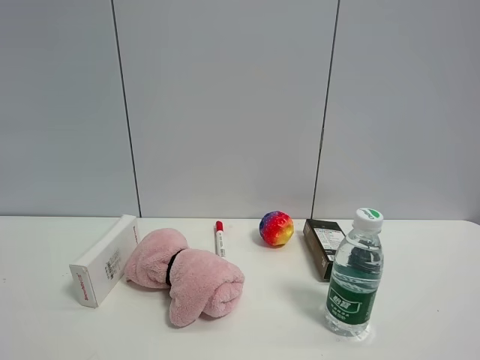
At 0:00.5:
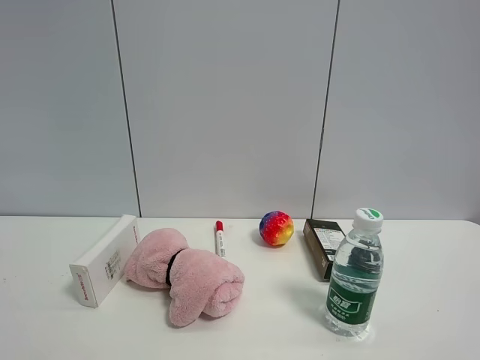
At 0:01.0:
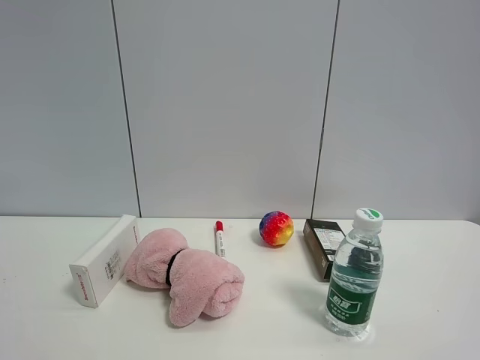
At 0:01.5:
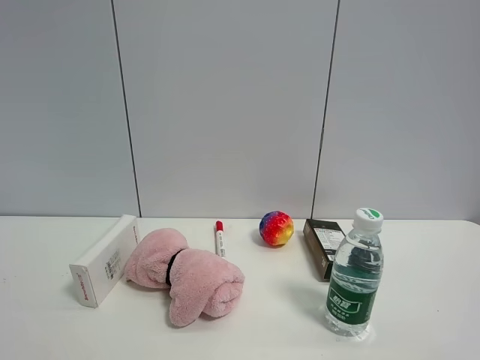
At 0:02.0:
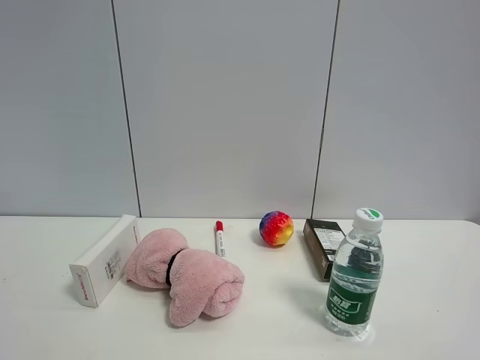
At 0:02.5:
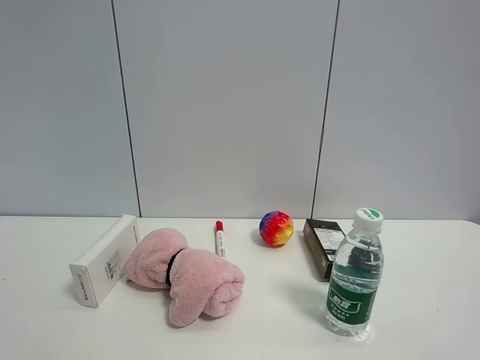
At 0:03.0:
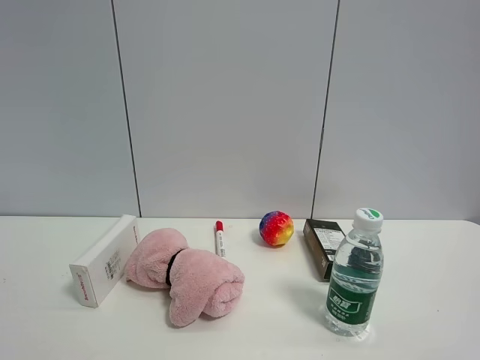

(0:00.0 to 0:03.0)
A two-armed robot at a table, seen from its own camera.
Task of the whole recording: the gripper move the object.
0:01.5 - 0:03.0: Both grippers stay put.

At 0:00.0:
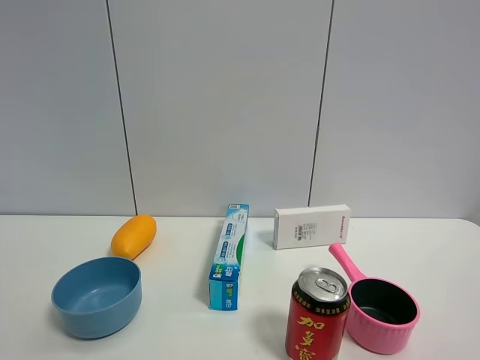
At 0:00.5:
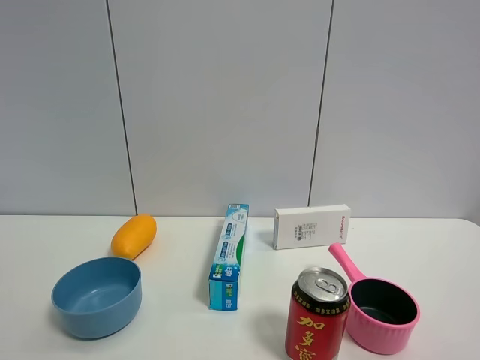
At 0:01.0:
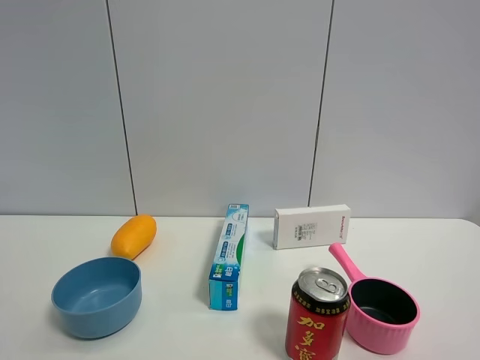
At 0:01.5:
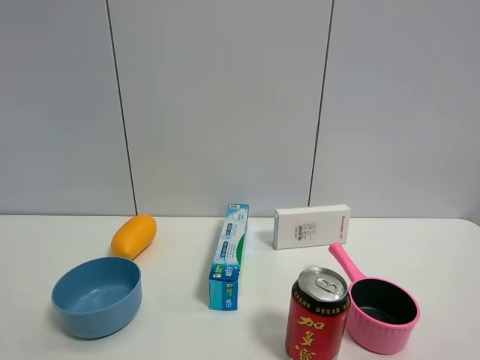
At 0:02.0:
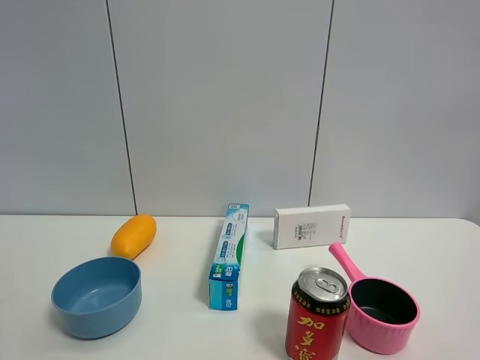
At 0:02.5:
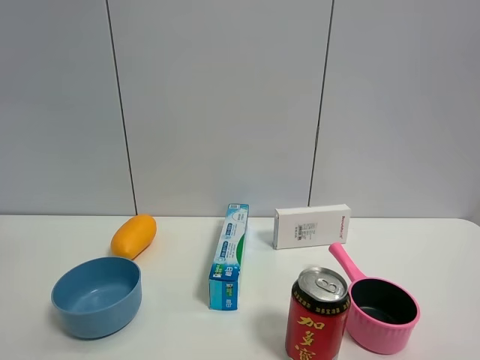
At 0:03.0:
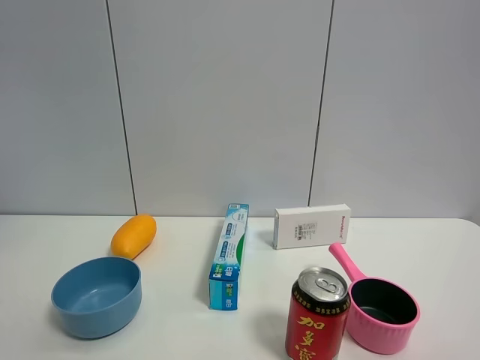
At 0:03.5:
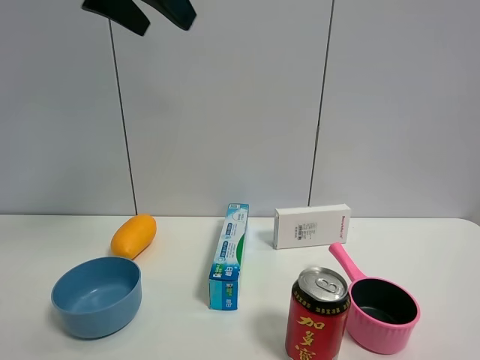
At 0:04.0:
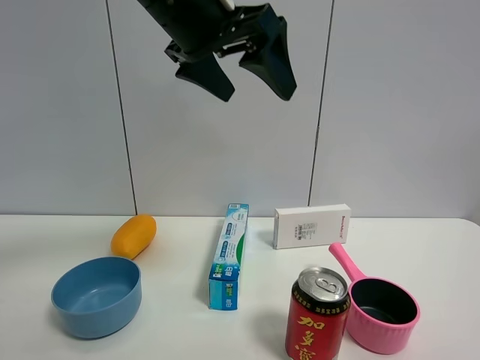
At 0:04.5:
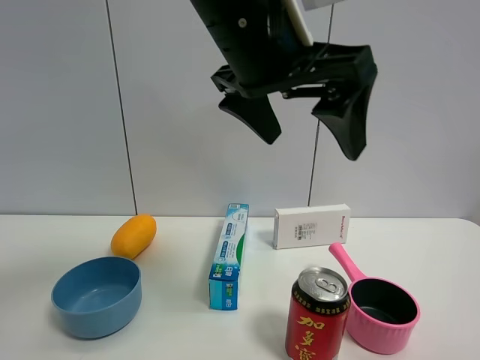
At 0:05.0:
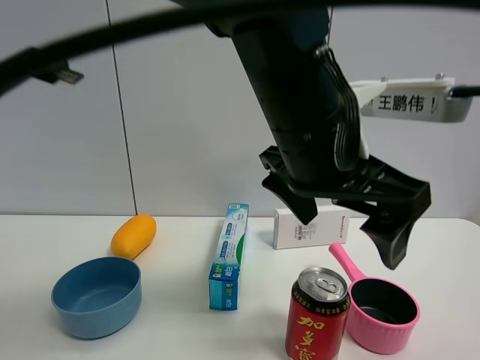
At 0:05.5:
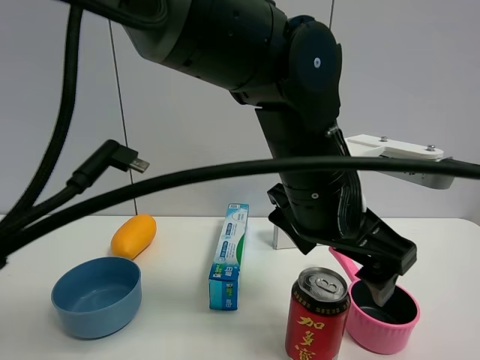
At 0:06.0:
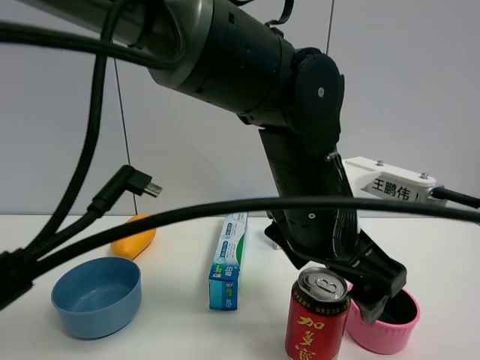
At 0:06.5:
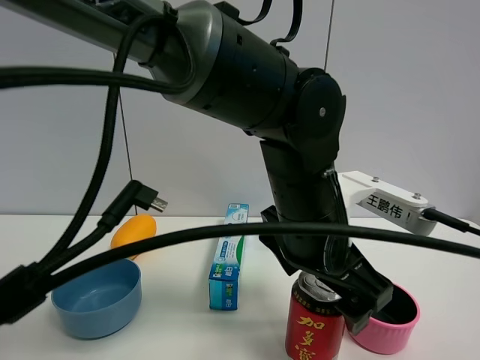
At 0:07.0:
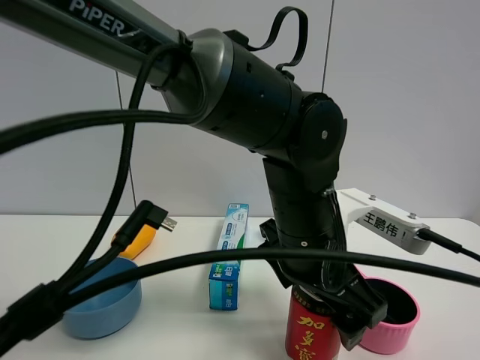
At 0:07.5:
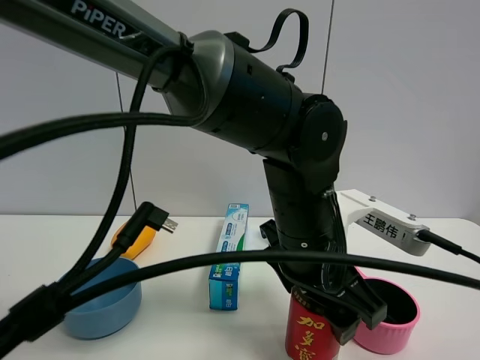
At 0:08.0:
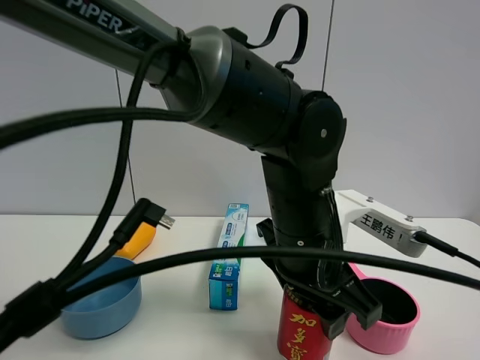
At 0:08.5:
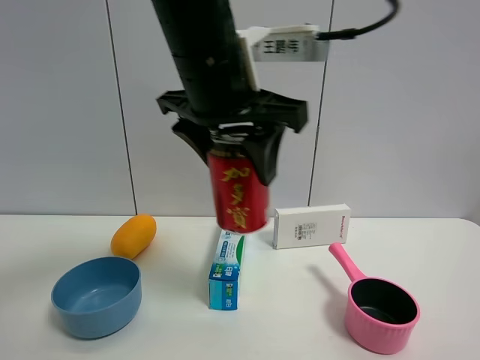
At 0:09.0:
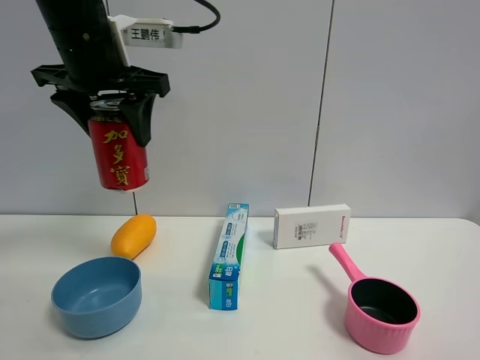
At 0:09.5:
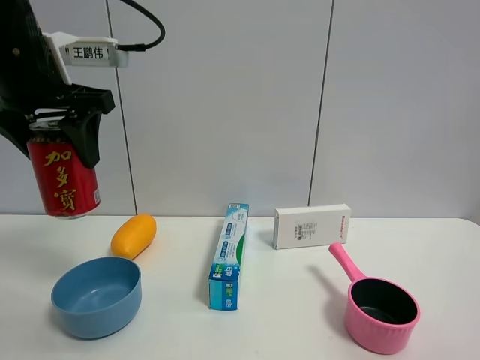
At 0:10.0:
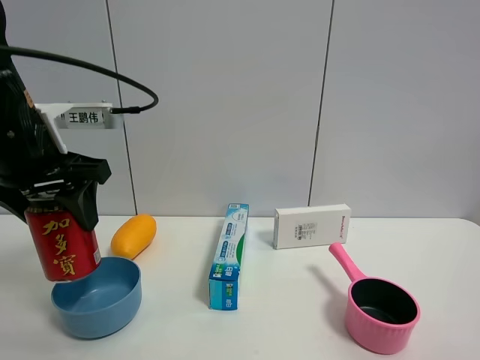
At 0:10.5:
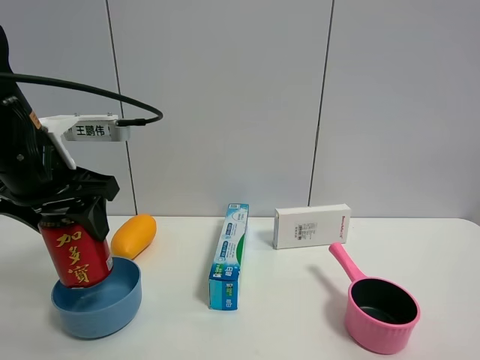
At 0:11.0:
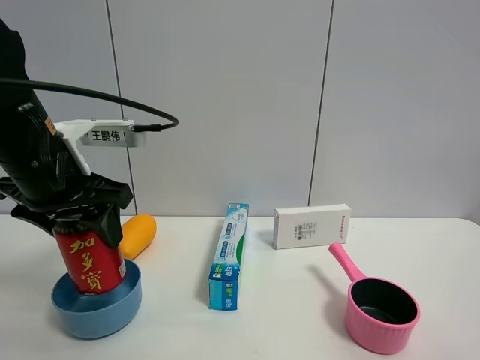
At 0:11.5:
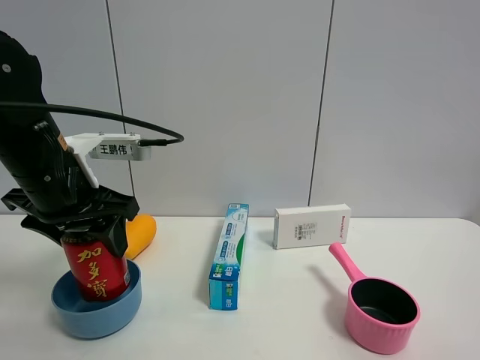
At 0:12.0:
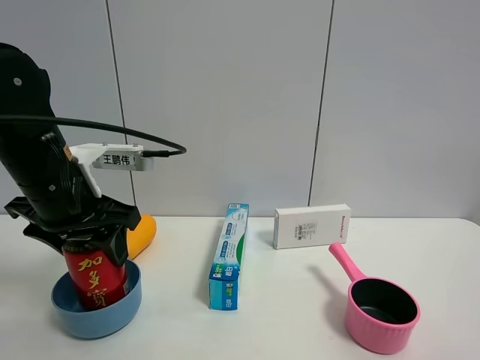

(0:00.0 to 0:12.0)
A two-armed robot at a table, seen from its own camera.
Task of the whole recording: the gripper move the object.
Step, 0:00.0 - 0:07.5: Grasp the Jia Duo Bao with the left gripper.
0:02.0 - 0:04.0: The left gripper heads to the right and forward, covering roughly 30 cm.
0:04.0 - 0:06.0: The left gripper is displaced downward and to the right by approximately 20 cm.
0:06.0 - 0:08.0: The left gripper closes up.
0:08.0 - 0:10.0: The left gripper travels to the left by some 30 cm.
0:10.0 - 0:12.0: The left gripper changes place by approximately 5 cm.

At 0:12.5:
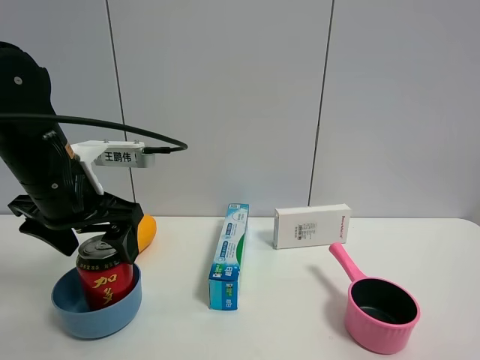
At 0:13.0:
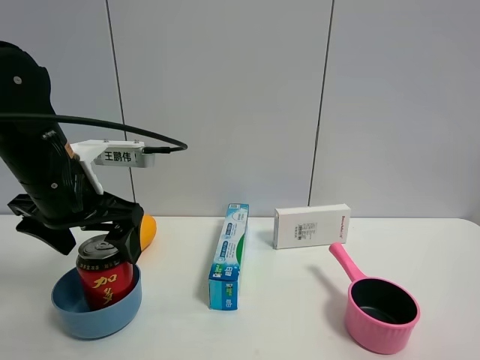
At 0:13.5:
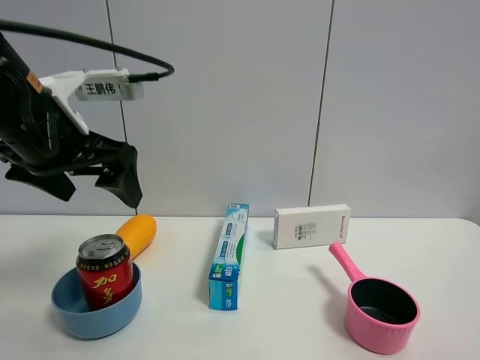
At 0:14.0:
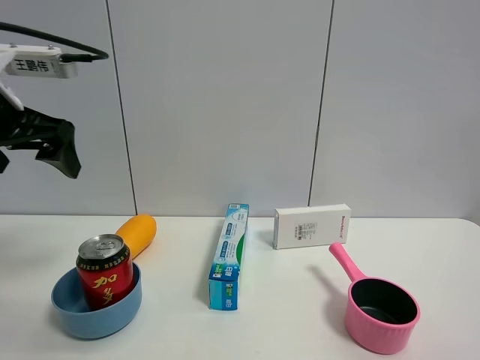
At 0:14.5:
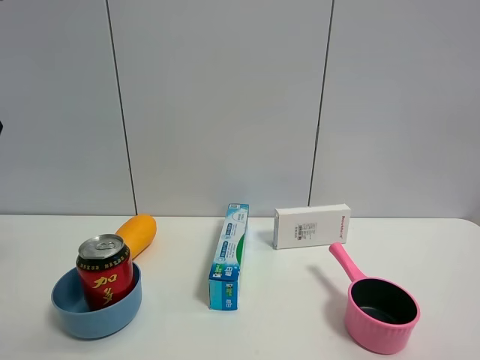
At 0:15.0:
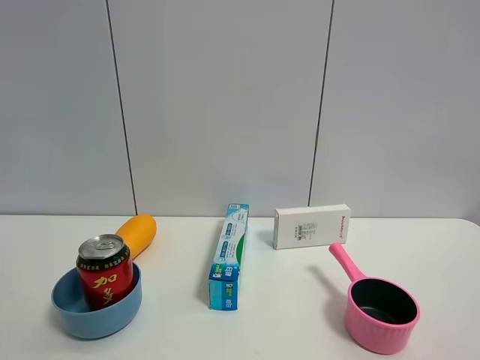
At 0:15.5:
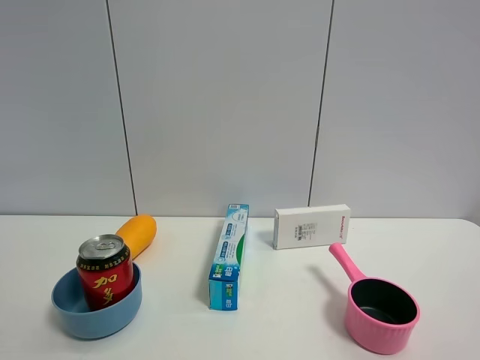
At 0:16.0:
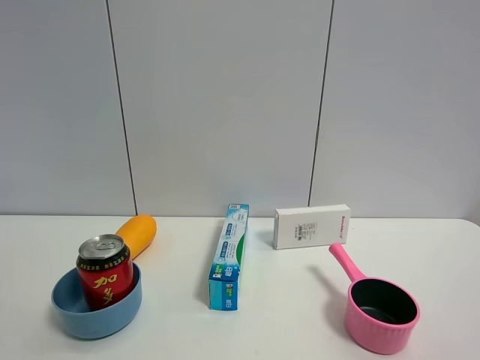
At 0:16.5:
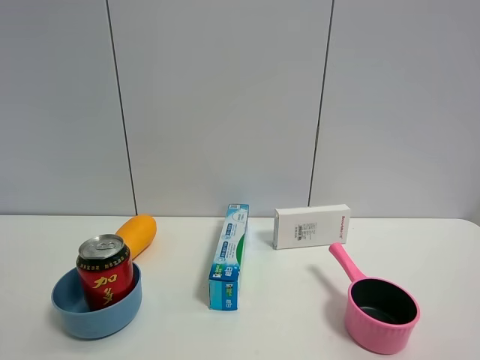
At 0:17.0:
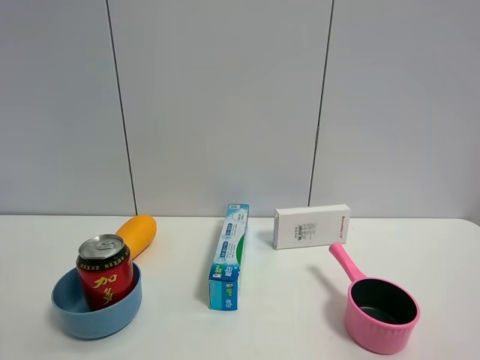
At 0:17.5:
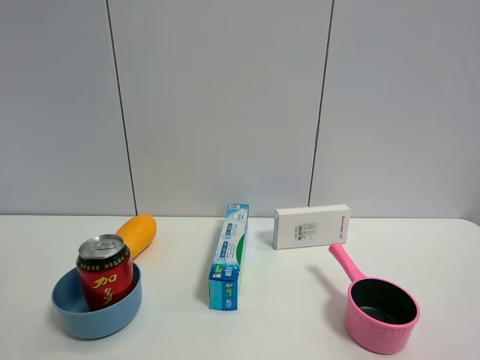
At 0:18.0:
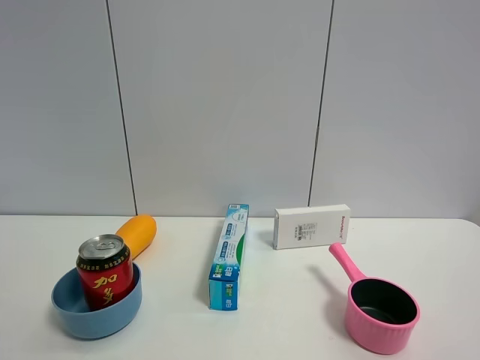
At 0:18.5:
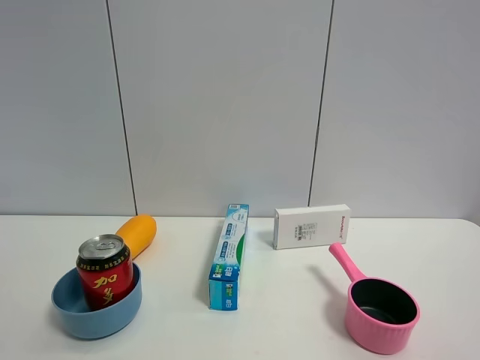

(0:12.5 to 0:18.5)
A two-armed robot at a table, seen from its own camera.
Task of the whole recording: the gripper move the object.
0:12.5 - 0:14.5: The left gripper heads upward and to the left, covering approximately 20 cm.
